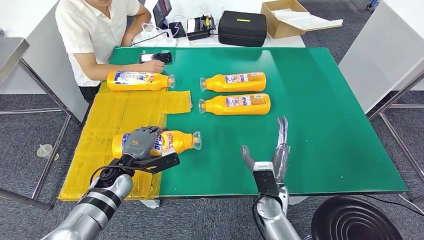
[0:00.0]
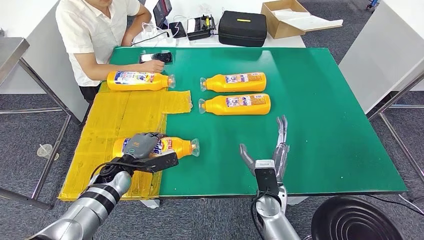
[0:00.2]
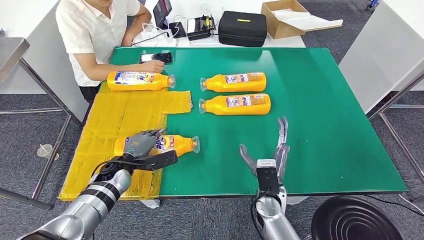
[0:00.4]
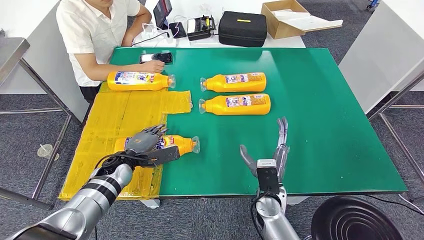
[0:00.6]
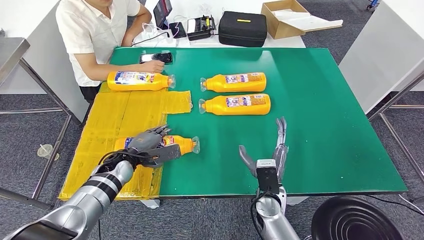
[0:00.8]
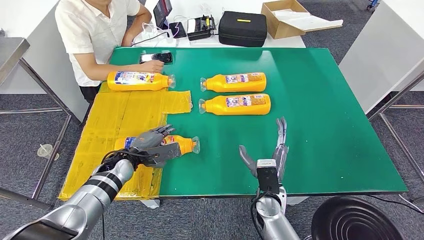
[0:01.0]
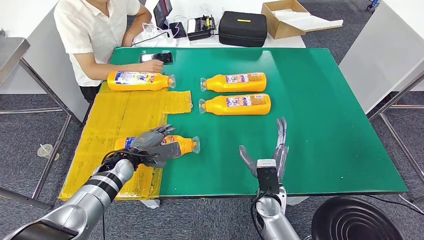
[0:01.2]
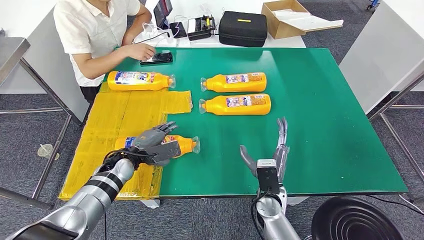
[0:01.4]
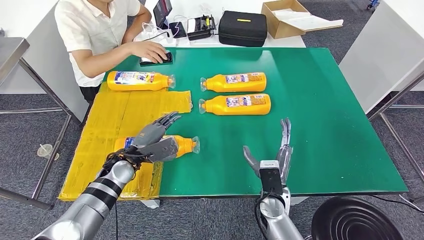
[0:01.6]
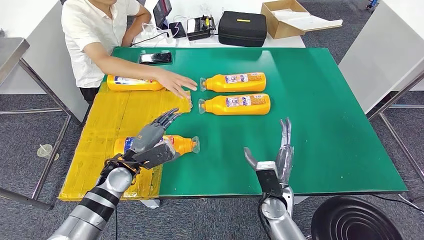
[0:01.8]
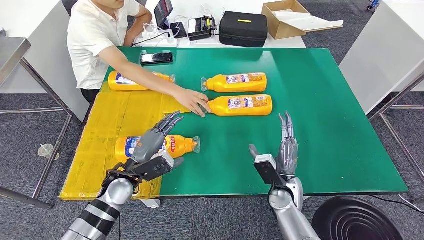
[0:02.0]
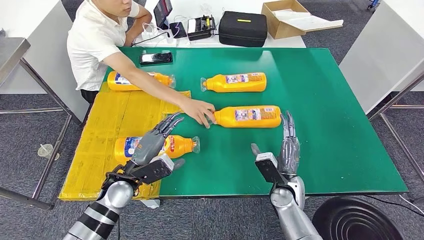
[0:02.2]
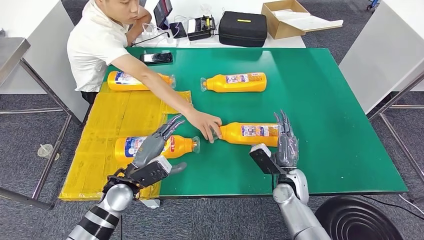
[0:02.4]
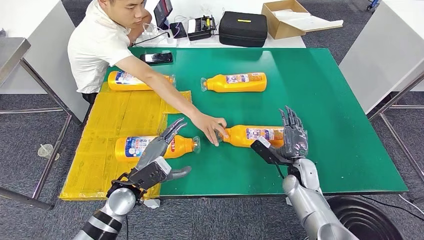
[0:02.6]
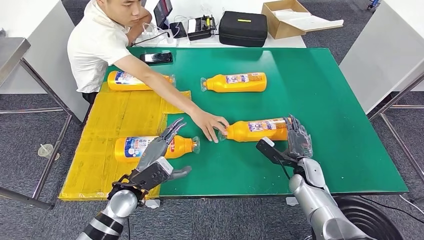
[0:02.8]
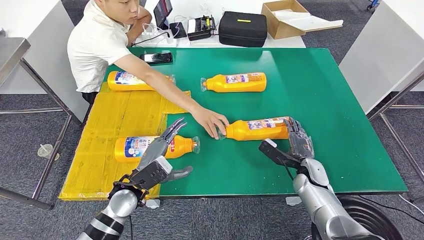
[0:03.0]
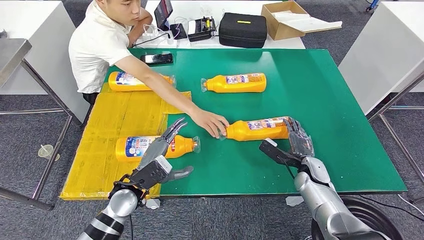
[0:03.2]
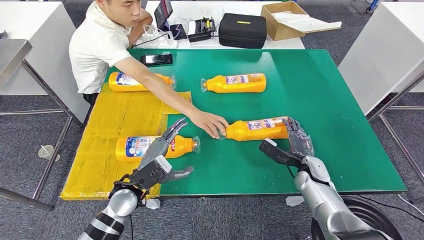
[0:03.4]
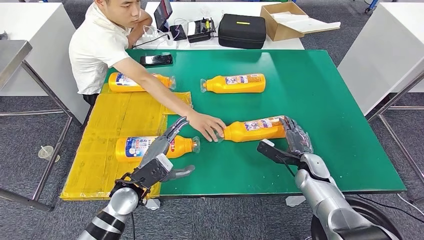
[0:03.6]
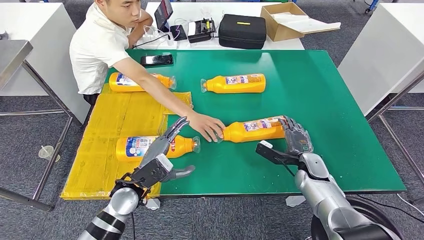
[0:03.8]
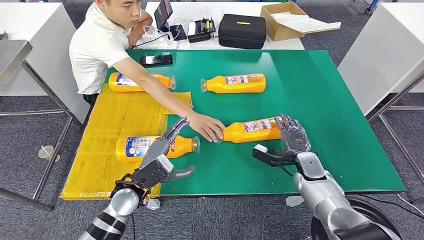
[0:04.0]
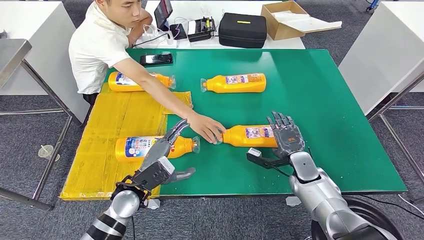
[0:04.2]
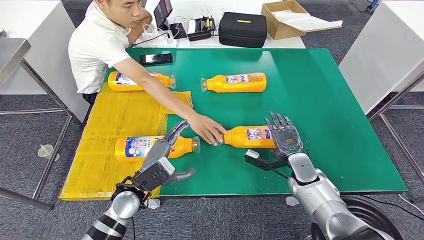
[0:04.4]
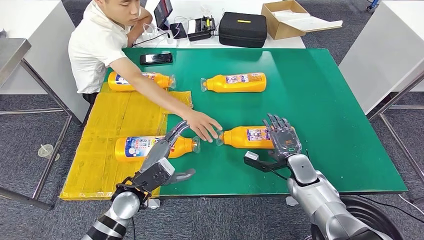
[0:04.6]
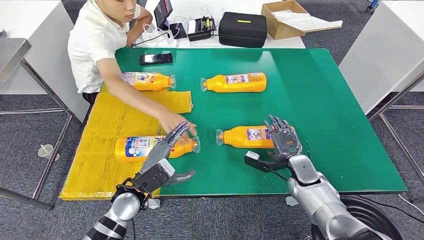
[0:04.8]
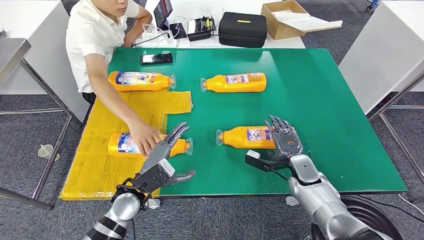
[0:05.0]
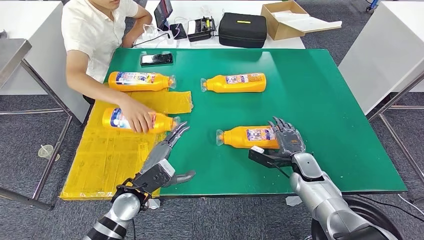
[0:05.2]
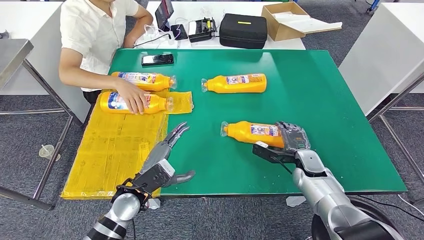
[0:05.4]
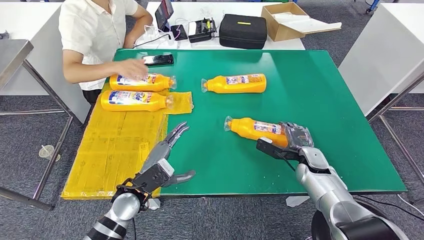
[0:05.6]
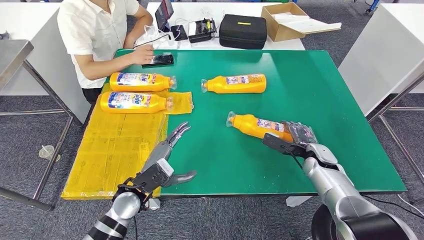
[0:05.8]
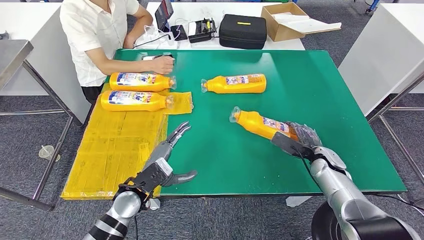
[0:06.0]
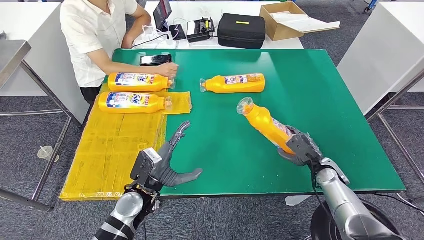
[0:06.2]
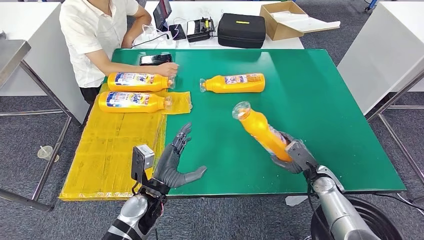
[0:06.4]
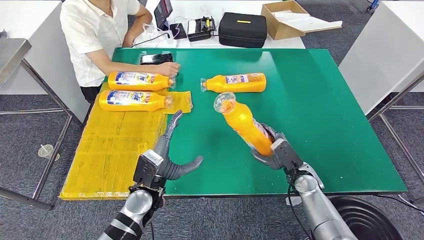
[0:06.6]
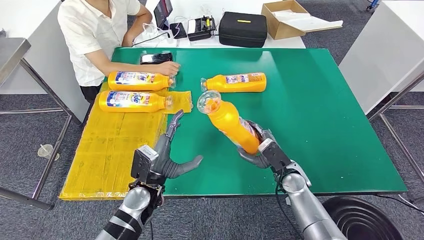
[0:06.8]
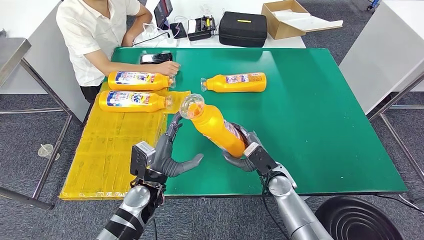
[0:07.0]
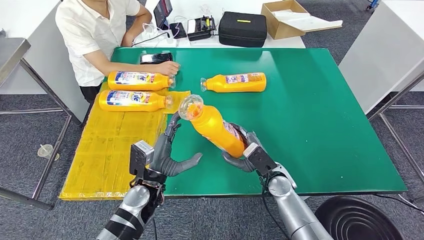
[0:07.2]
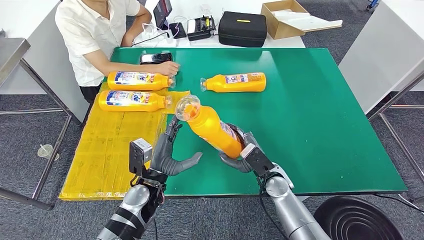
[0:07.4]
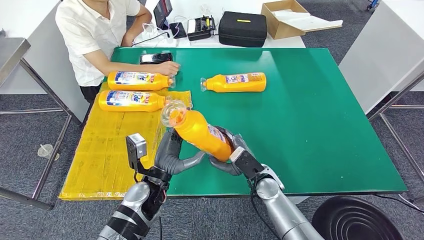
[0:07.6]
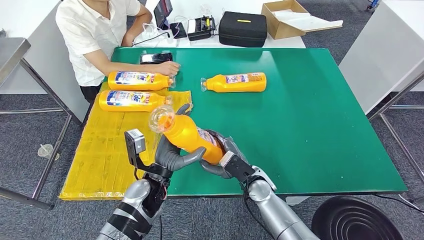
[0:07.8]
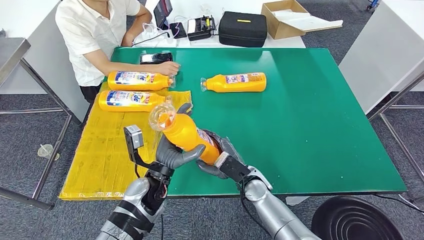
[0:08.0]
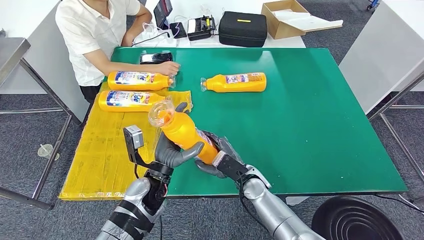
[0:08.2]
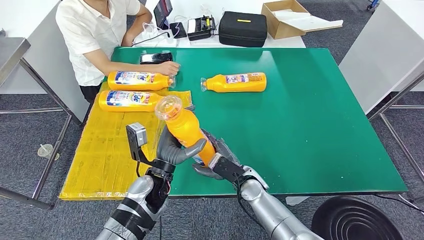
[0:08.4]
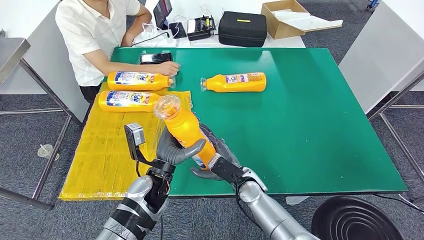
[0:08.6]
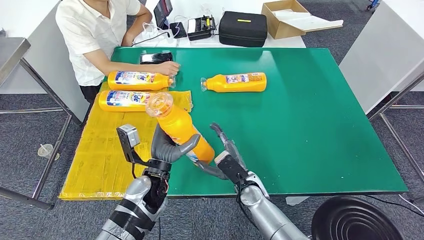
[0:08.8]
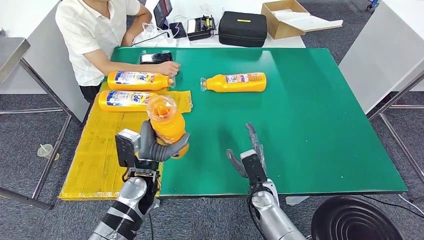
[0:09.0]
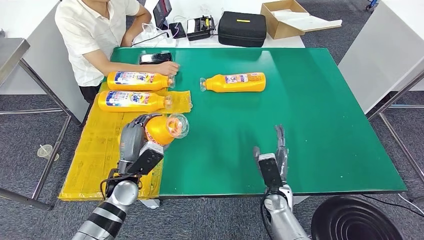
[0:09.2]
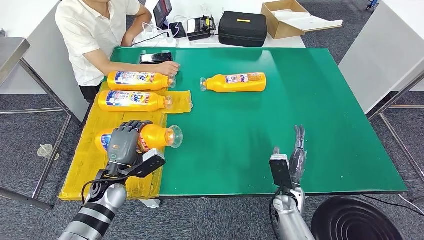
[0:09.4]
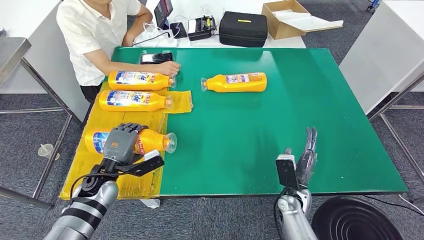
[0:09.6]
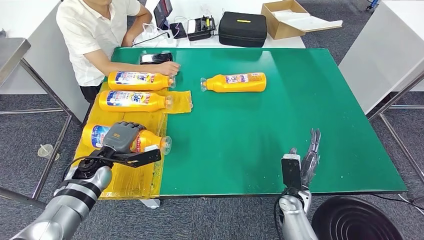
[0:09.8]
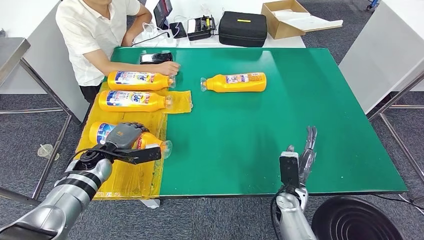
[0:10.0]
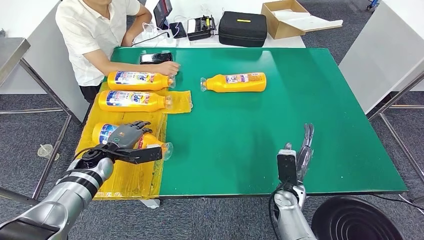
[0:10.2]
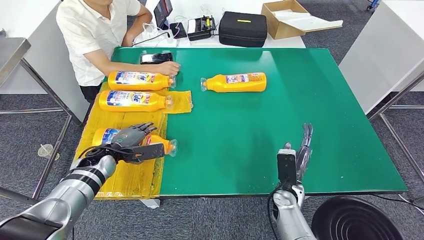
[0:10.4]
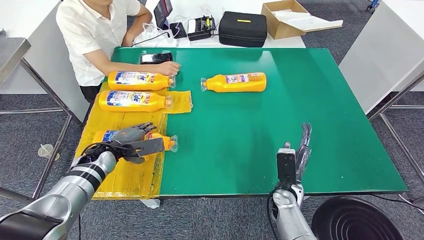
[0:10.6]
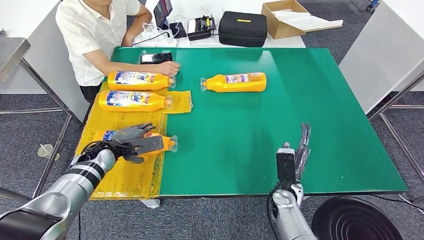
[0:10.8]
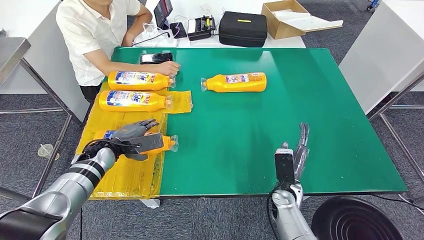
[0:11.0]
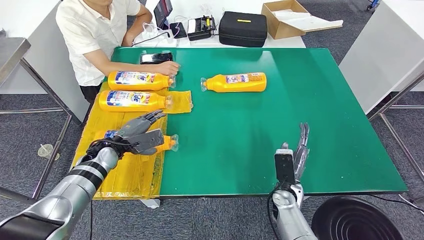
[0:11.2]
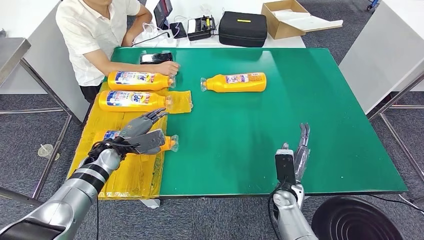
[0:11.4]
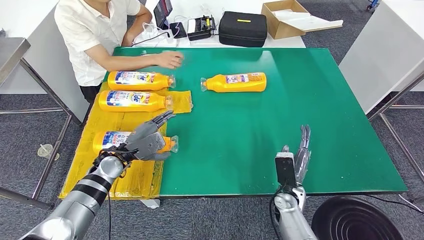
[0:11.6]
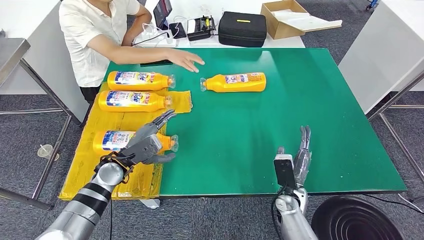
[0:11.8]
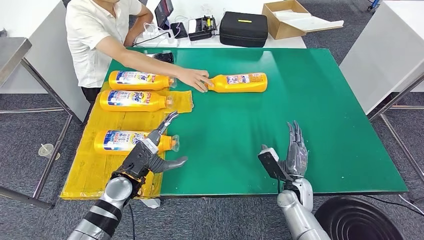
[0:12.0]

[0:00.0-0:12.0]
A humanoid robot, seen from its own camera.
Step, 0:00.8 to 0:06.8: Pick up the fast-moving consumer goods bottle from the table.
Step, 0:07.2 to 0:10.2: Flip the fast-moving consumer goods bottle to the front side.
0:09.0 to 0:10.4: The left hand heads to the left and forward, covering some 15 cm. The right hand heads to the right, covering roughly 5 cm.
0:10.4 to 0:12.0: The left hand shifts some 10 cm to the right and backward.

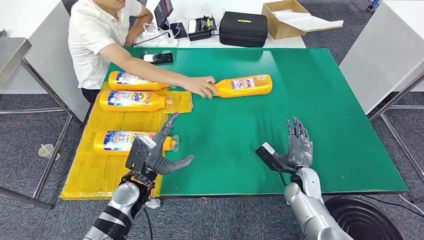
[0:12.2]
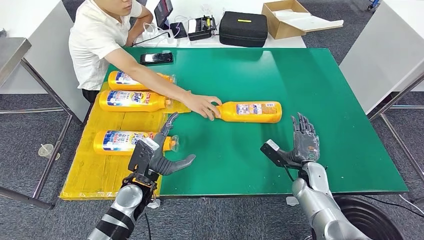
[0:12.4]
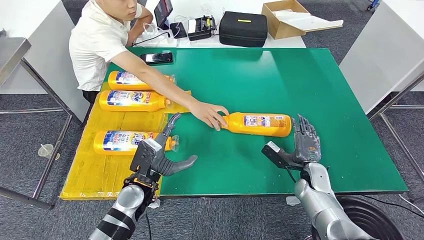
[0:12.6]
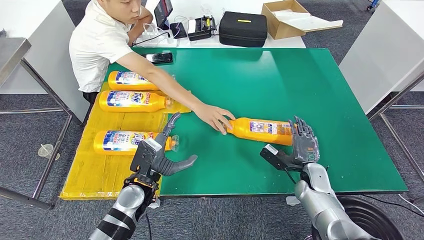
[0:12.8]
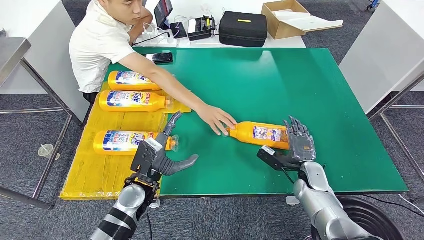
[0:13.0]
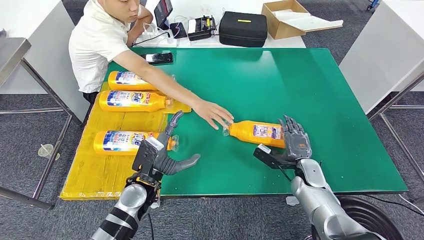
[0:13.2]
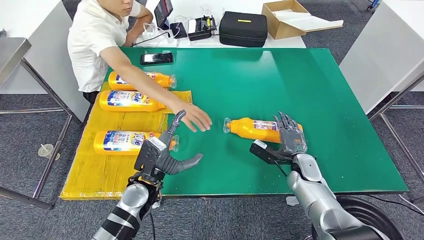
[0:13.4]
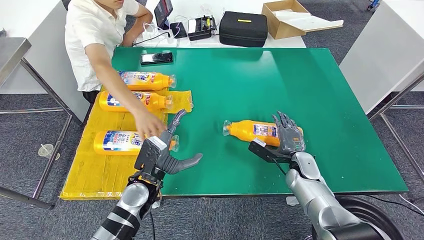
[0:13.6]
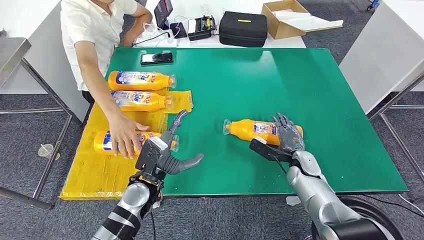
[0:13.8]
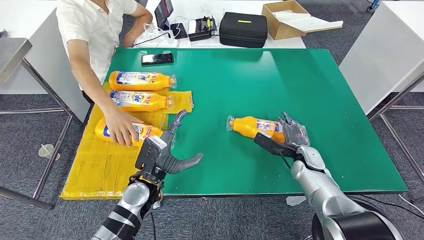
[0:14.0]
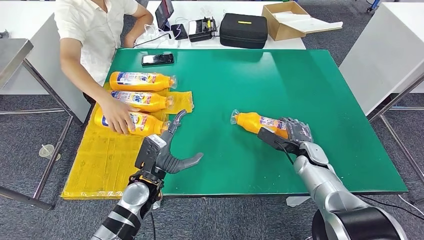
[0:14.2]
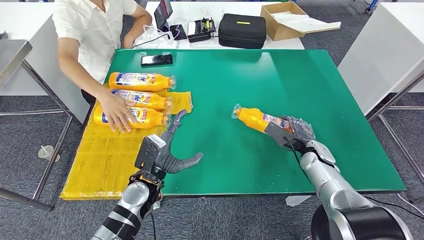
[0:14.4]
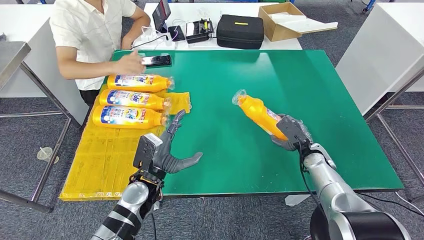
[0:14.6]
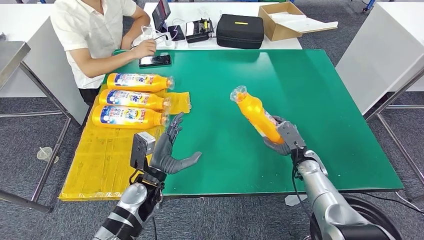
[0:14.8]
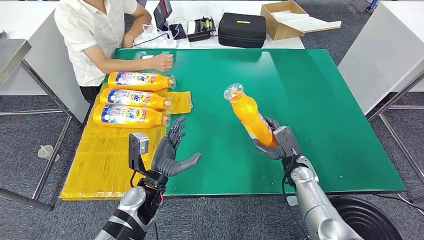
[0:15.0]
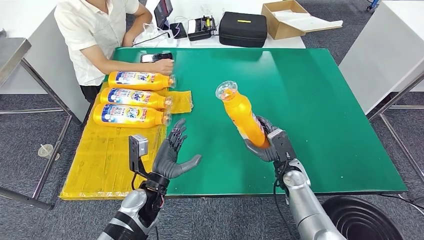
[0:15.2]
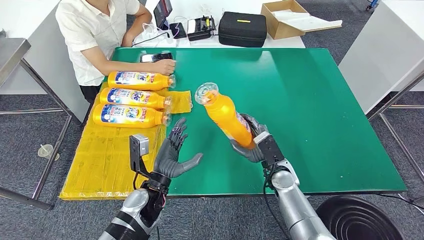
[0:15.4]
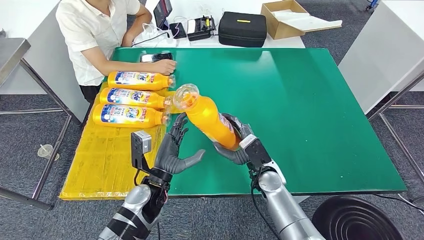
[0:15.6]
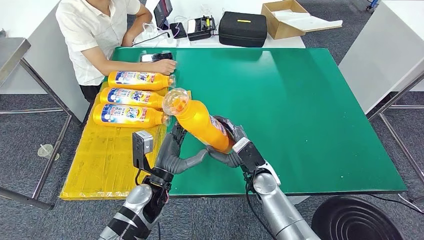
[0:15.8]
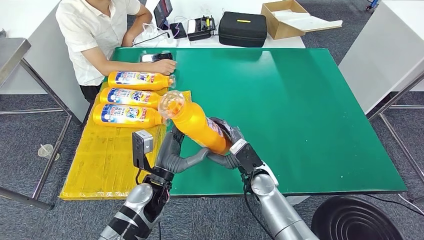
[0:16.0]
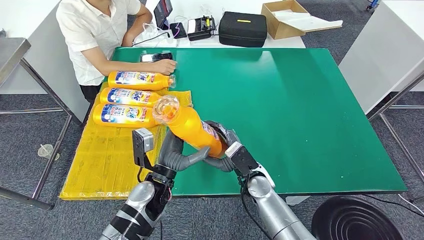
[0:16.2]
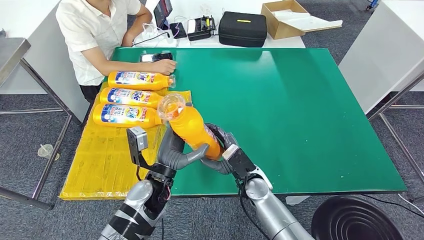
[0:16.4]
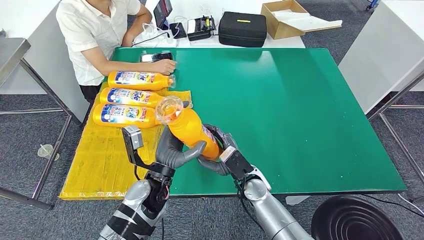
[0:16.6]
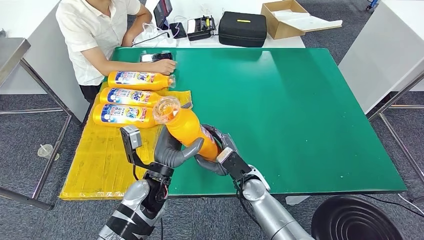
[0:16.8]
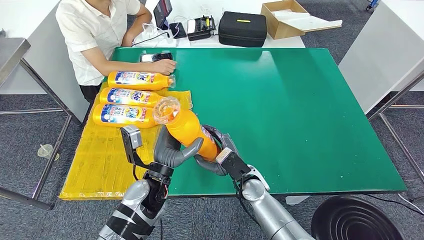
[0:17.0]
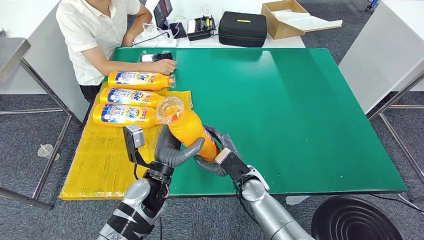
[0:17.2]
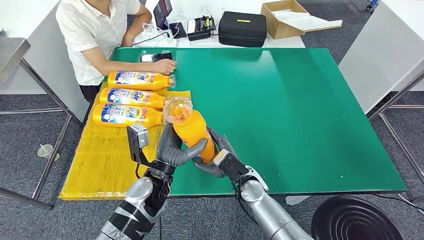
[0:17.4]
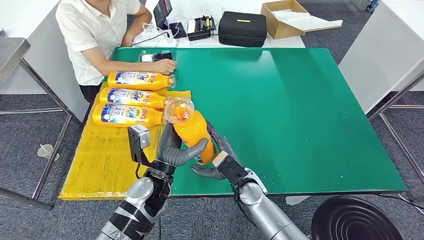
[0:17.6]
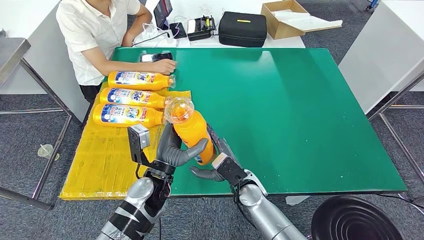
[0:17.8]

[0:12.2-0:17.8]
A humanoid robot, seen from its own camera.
Step, 0:12.2 to 0:16.0: Pick up the fast-moving consumer goods bottle from the table.
0:12.2 to 0:13.6: The hands move only a little.
0:15.0 to 0:16.4: The right hand is displaced to the left by some 15 cm.
0:16.4 to 0:17.8: The hands move only a little.
